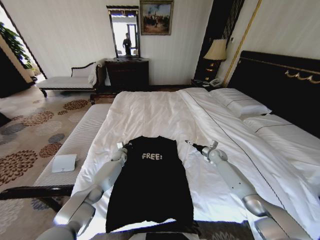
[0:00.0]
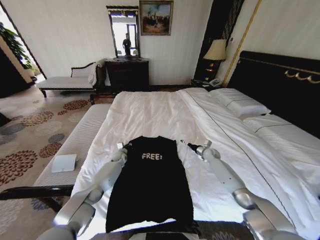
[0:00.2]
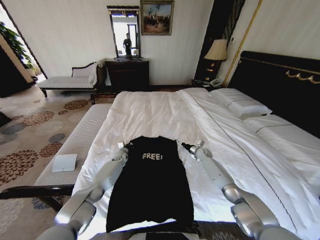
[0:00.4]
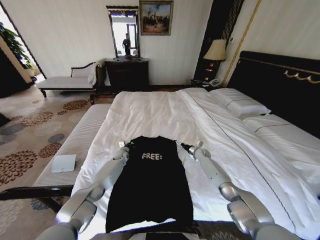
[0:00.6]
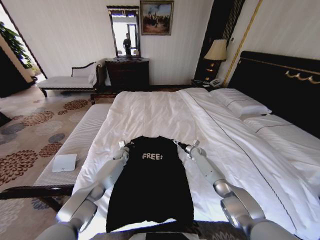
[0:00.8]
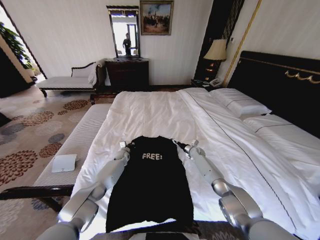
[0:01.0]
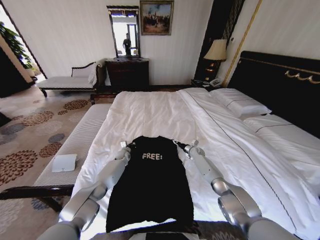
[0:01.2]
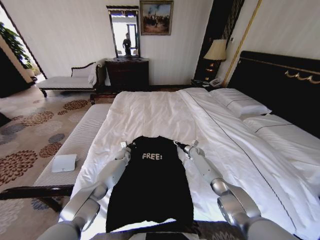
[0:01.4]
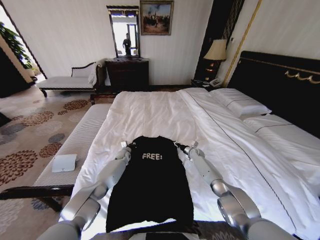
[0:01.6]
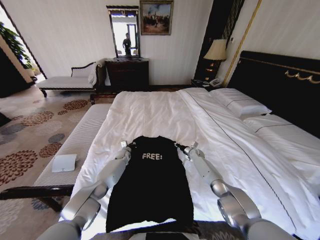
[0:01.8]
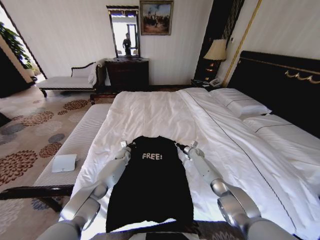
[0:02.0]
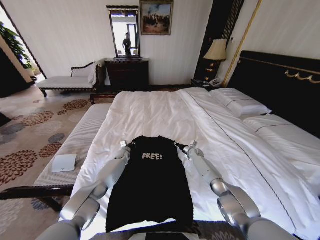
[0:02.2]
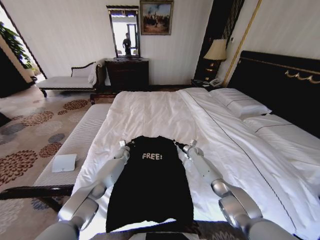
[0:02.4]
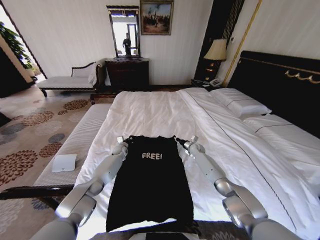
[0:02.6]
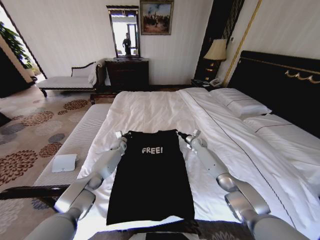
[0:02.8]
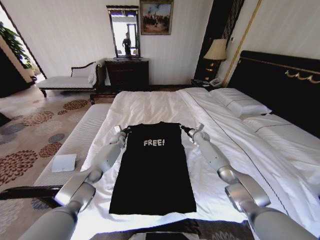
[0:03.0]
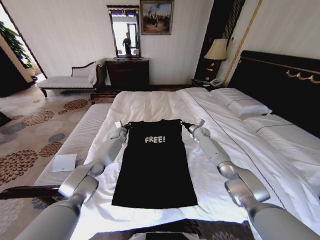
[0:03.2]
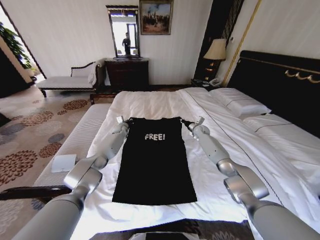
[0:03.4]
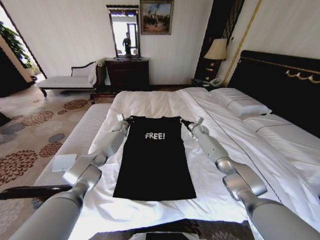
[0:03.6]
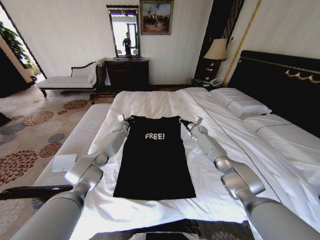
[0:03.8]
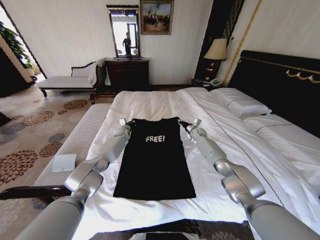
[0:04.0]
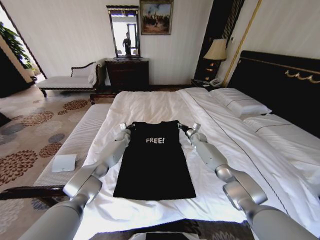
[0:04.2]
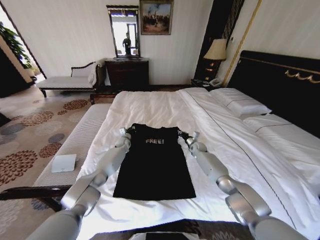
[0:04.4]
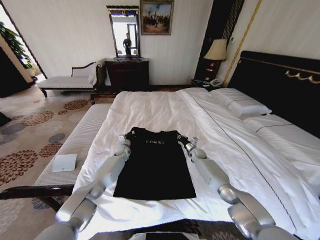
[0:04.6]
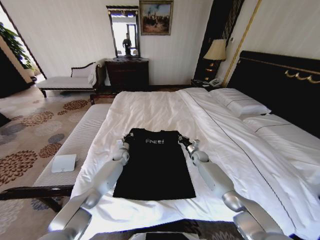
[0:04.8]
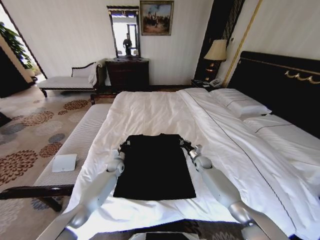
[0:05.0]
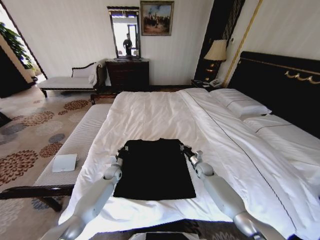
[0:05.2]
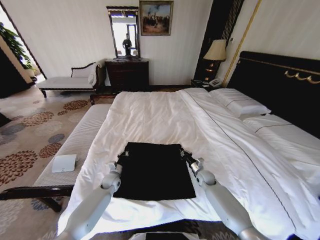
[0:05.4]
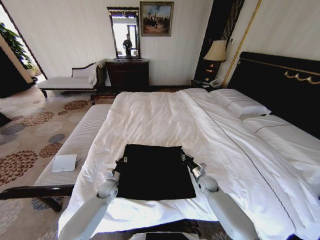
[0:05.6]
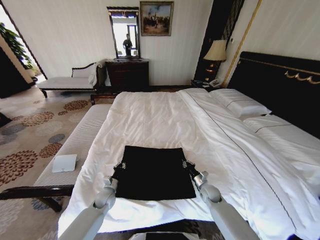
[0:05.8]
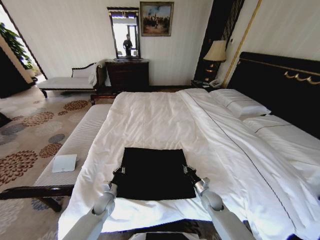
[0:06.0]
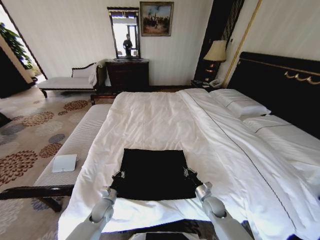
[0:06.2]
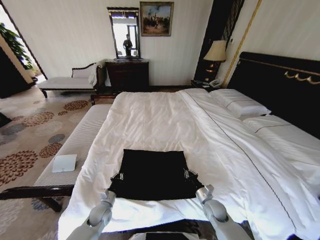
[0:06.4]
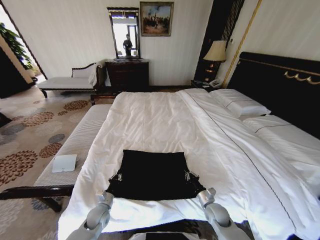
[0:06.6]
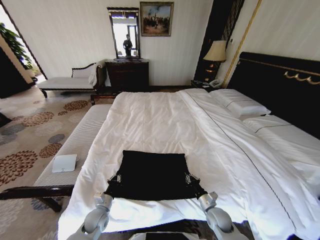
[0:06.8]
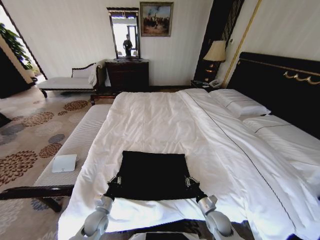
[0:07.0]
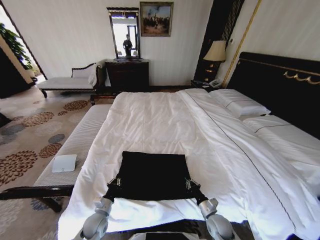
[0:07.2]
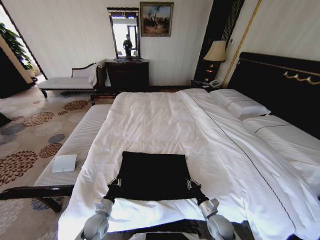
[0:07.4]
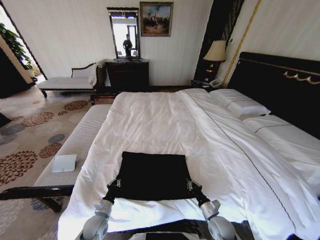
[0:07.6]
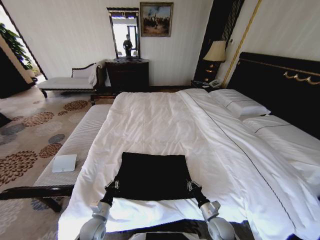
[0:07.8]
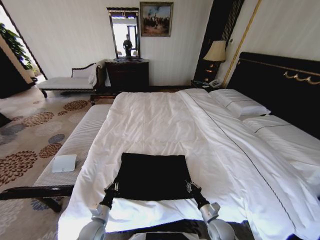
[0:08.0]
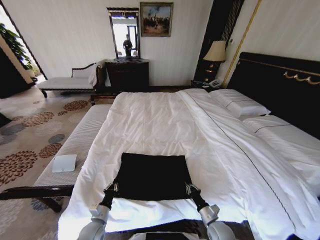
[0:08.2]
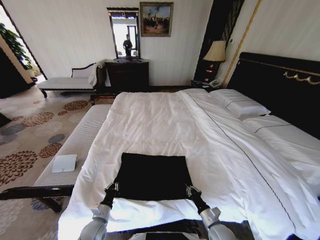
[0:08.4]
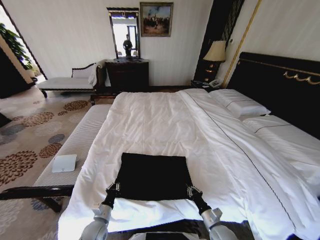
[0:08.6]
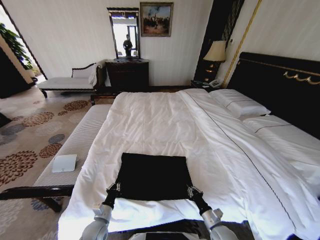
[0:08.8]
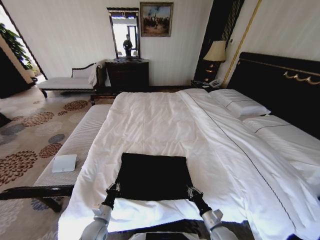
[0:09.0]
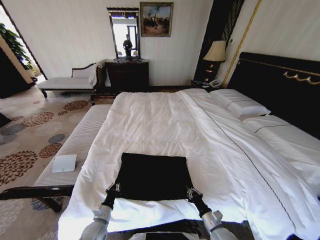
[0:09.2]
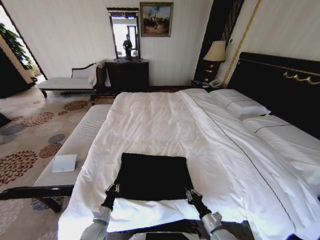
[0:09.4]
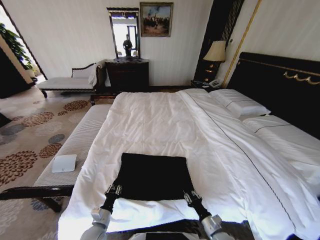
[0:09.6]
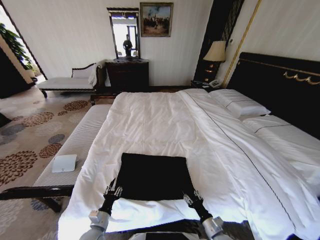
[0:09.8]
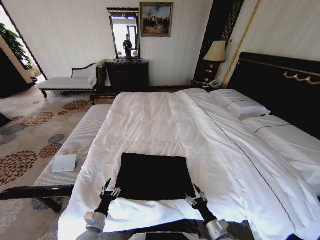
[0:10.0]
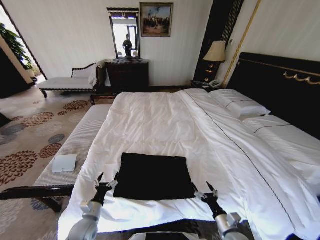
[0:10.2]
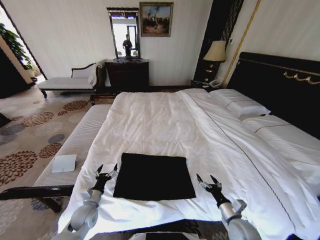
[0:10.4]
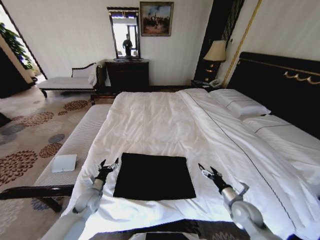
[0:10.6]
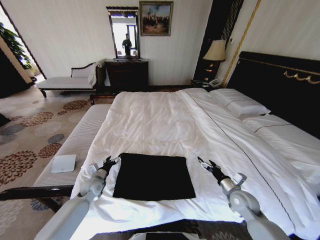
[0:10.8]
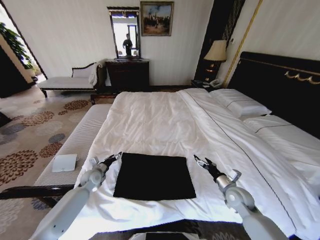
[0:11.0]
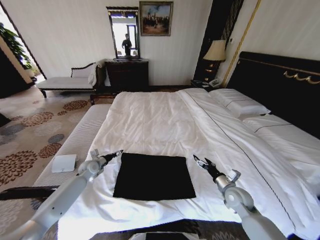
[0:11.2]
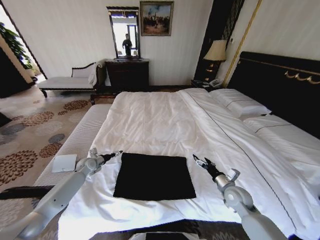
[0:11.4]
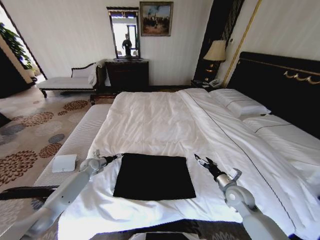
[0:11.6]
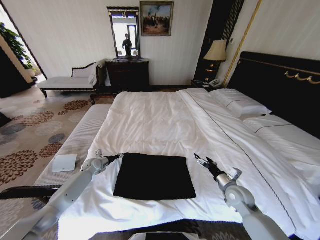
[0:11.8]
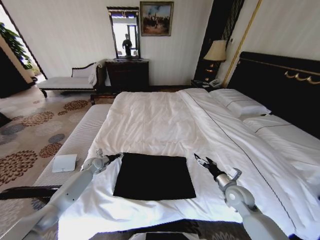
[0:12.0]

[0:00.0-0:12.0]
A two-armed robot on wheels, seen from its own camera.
Task of the whole recording: Fold the clothes on the bed.
0.0 to 1.6 s: The right gripper is displaced to the left, downward and forward by some 15 cm, and closes up.
1.6 to 3.0 s: Both grippers travel together upward and forward, some 10 cm. The right gripper closes its fingers.
3.0 to 4.4 s: The left gripper travels upward and back again, approximately 5 cm each way. Meanwhile the right gripper is displaced downward by some 5 cm.
4.4 to 6.0 s: The grippers both shift backward by roughly 30 cm.
6.0 to 7.6 s: The two grippers go approximately 10 cm backward.
7.6 to 9.0 s: The grippers move only a little.
9.0 to 10.4 s: The left gripper is displaced upward by some 5 cm, and opens. Meanwhile the right gripper goes about 10 cm upward and to the right, and opens.
10.4 to 12.0 s: The left gripper heads forward, covering about 25 cm, and closes its fingers. The right gripper moves forward and upward, some 15 cm.

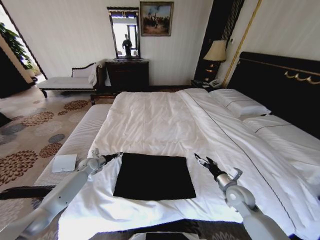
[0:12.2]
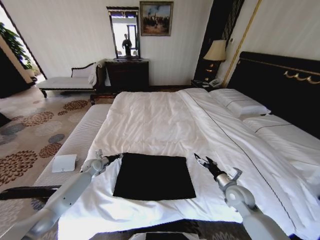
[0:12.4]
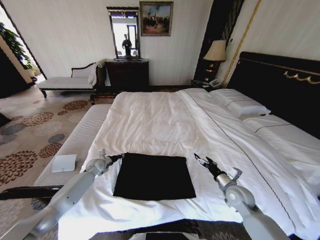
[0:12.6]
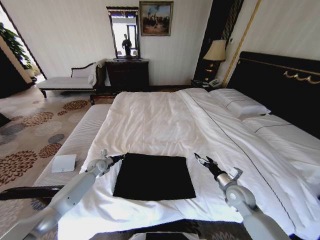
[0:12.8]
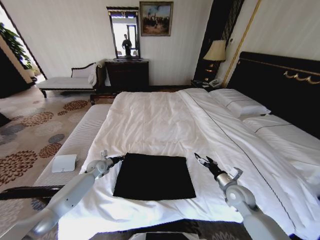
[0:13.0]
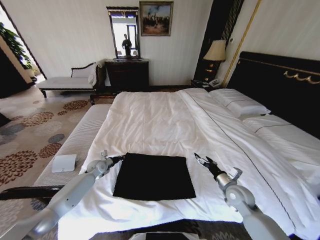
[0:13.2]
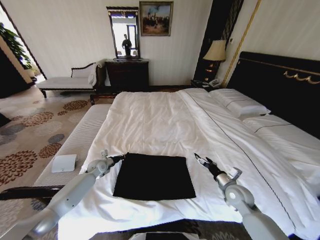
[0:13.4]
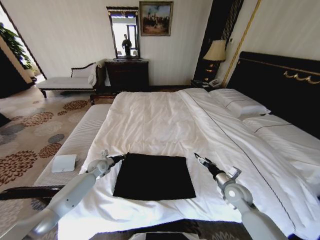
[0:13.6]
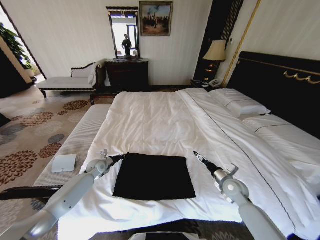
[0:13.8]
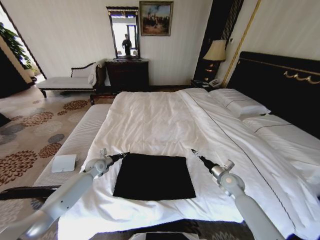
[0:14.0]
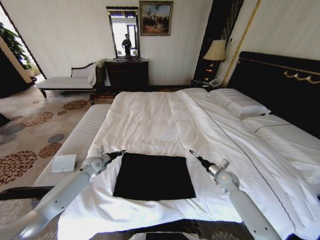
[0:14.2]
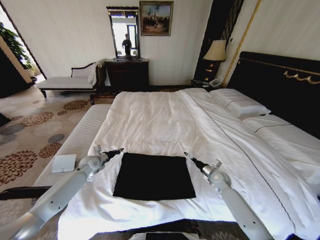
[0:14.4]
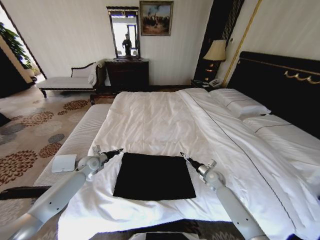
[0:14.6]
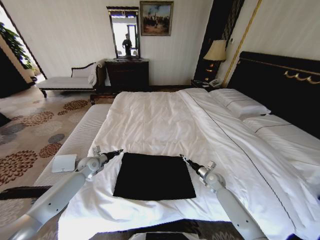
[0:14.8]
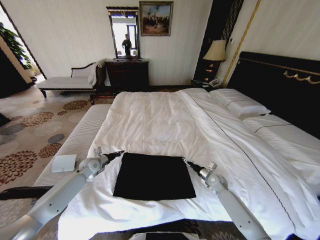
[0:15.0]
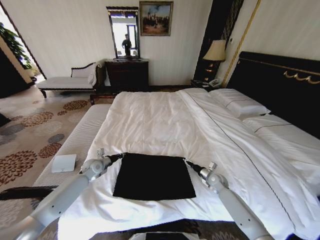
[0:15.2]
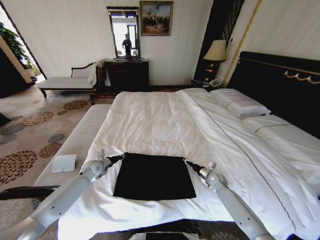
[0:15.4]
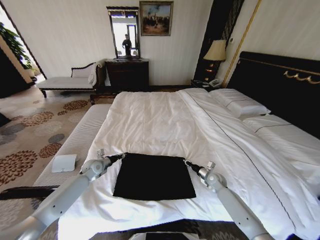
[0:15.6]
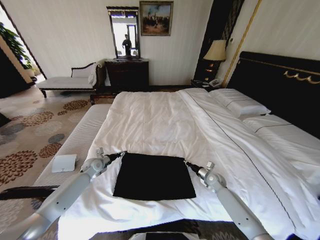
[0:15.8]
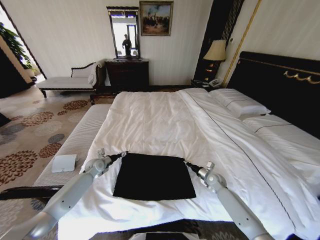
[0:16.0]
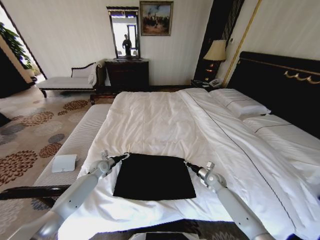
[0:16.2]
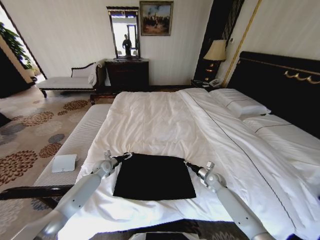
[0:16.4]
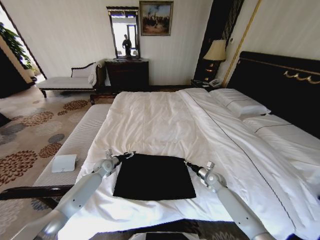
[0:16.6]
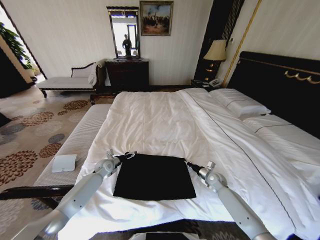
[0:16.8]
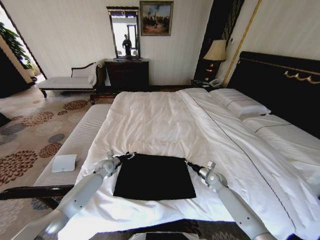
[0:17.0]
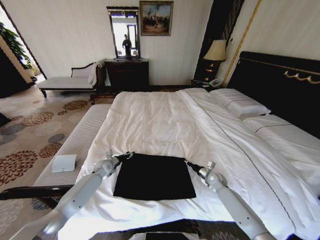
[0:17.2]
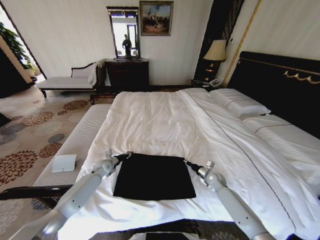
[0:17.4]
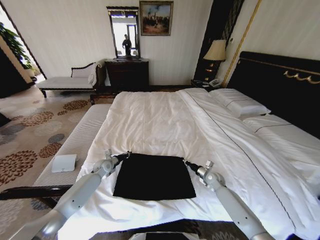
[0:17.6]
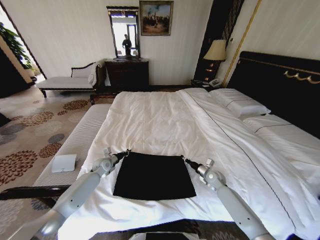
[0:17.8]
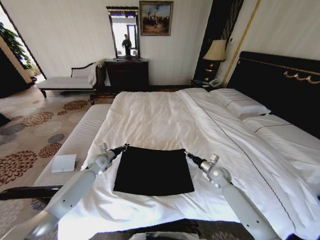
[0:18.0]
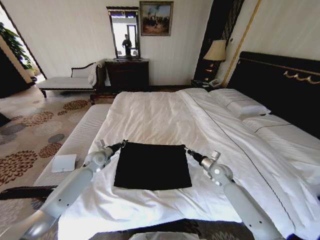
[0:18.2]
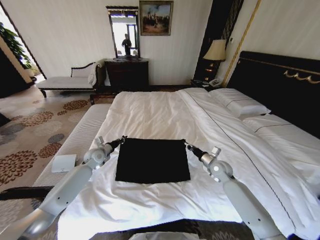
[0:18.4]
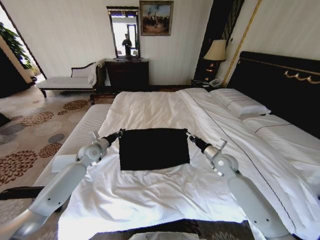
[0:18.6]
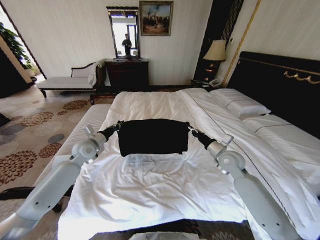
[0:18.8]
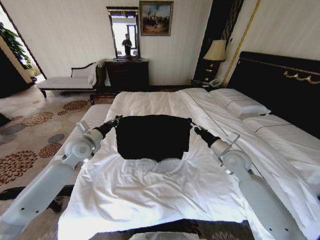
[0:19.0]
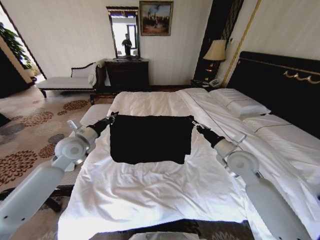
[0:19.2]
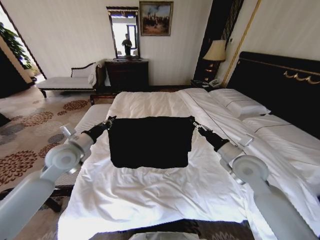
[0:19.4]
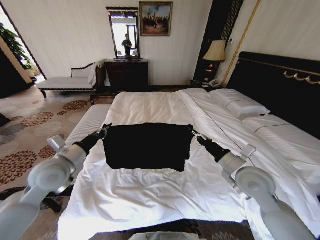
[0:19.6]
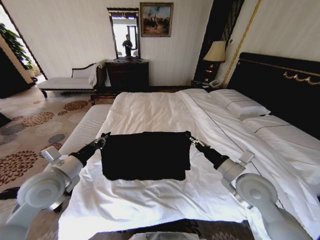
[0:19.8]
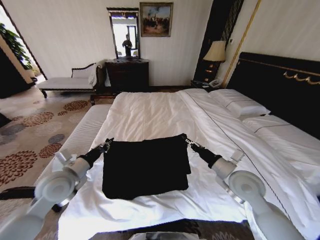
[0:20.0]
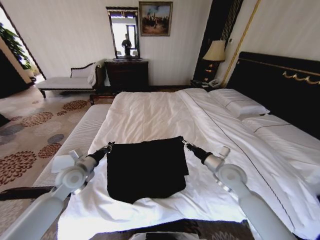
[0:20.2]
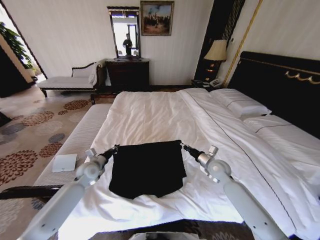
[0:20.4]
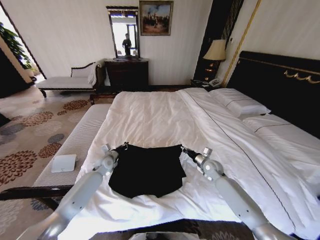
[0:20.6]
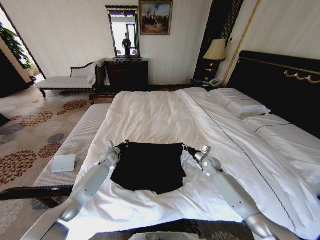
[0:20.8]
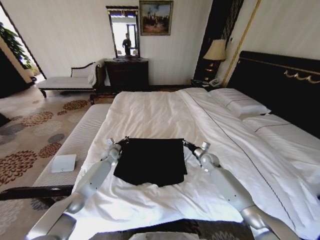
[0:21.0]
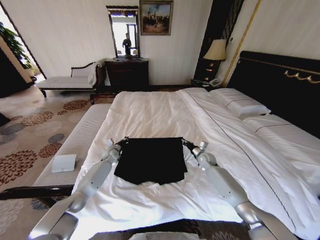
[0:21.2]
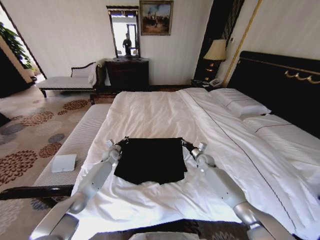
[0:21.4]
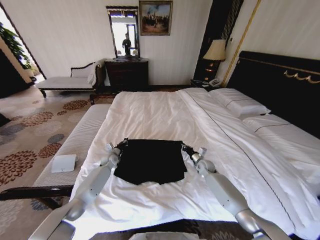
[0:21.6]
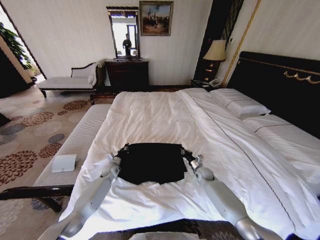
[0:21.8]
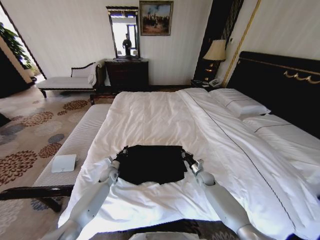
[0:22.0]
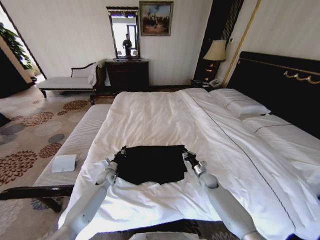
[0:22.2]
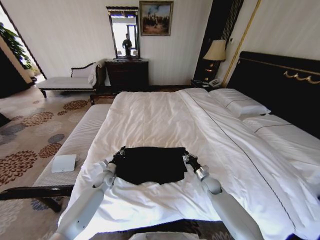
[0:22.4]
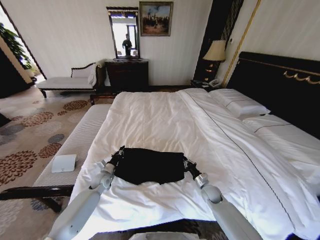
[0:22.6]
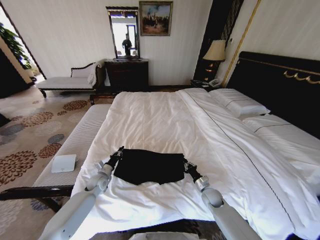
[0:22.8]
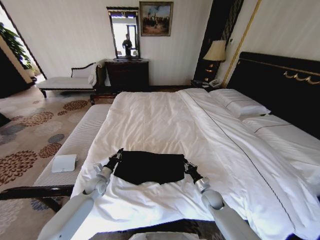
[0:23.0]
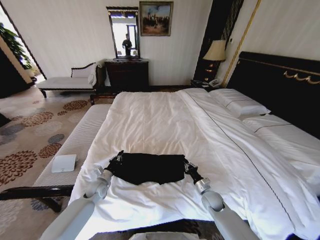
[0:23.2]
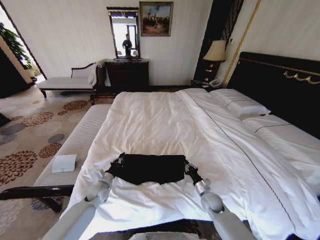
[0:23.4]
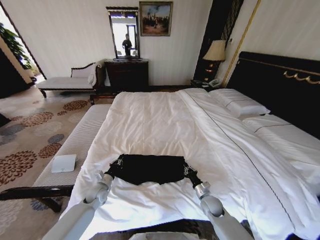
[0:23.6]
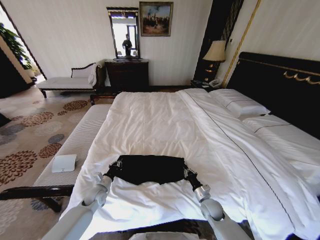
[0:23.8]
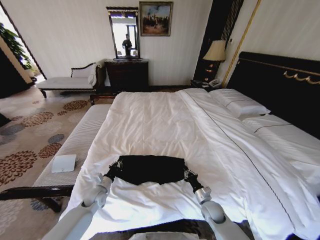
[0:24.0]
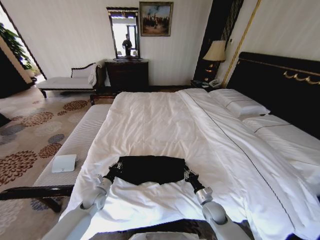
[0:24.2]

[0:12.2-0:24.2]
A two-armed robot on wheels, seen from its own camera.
Task of the whole recording: Fold the clothes on the bed.
12.2 to 13.8 s: The left gripper heads to the right, covering some 5 cm, and closes its fingers.
13.8 to 15.2 s: The right gripper heads downward and forward, covering about 10 cm.
15.2 to 16.6 s: The right gripper closes its fingers; the left gripper changes place by roughly 5 cm, and opens its fingers.
16.6 to 18.2 s: The grippers both shift upward by some 10 cm. The left gripper closes its fingers.
18.2 to 19.8 s: The left gripper heads backward and upward, covering some 25 cm. The right gripper travels upward and backward by about 20 cm.
19.8 to 21.2 s: Both grippers move forward and downward, some 35 cm.
21.2 to 22.6 s: The right gripper goes some 20 cm backward and downward, while the left gripper goes about 15 cm backward.
22.6 to 24.2 s: Both grippers travel together backward, about 10 cm.
